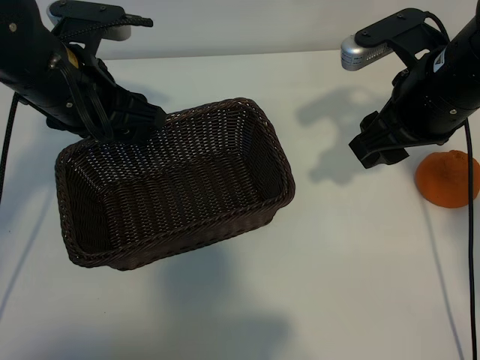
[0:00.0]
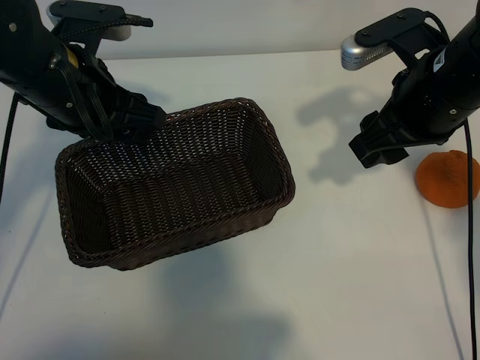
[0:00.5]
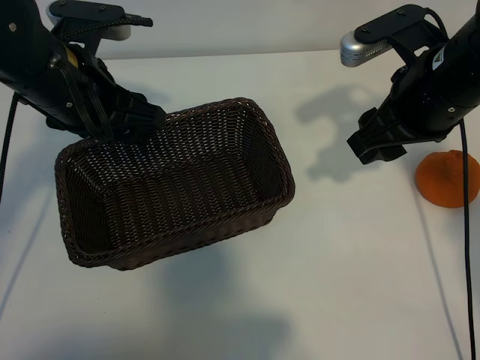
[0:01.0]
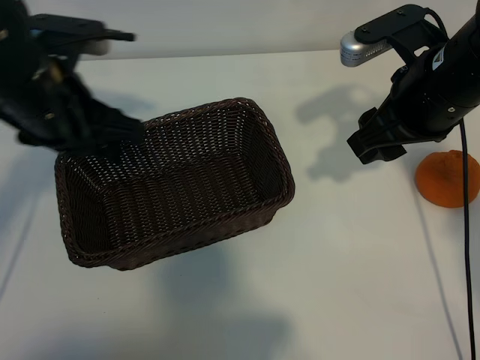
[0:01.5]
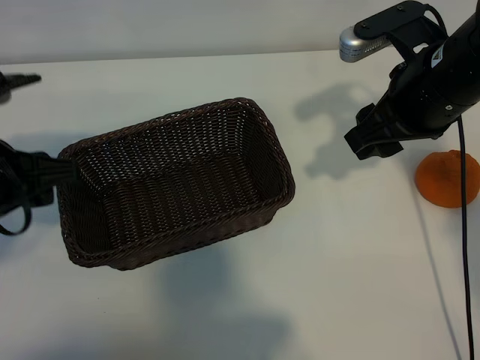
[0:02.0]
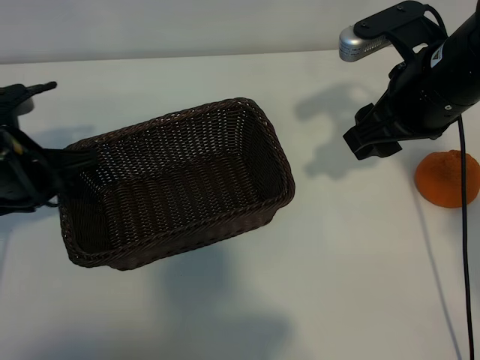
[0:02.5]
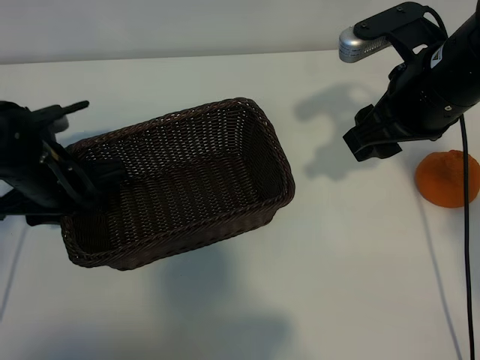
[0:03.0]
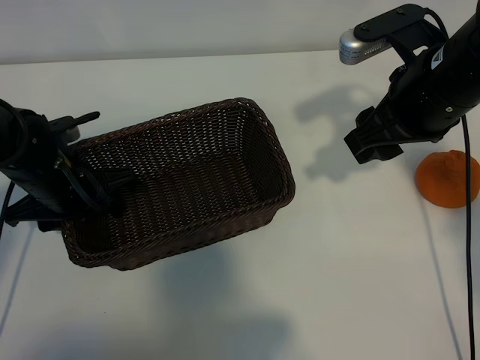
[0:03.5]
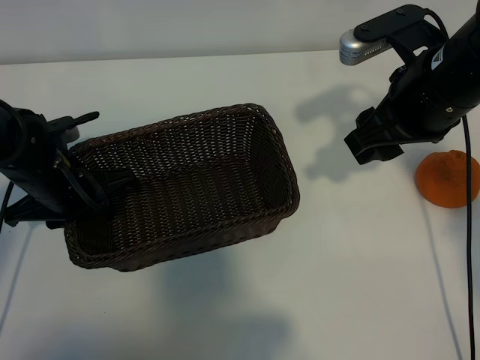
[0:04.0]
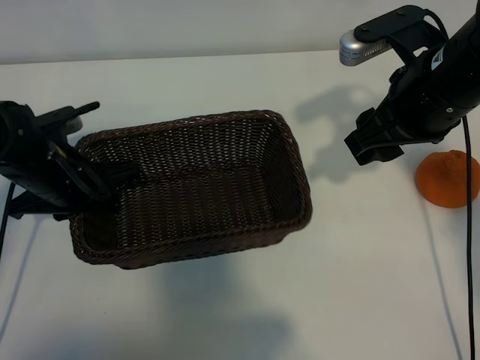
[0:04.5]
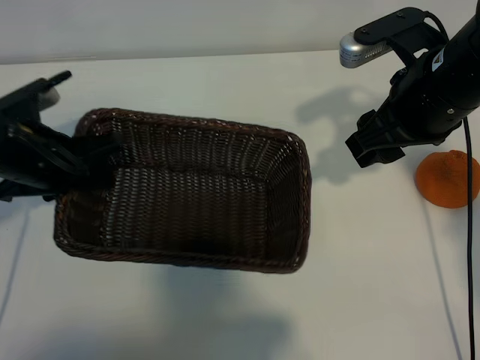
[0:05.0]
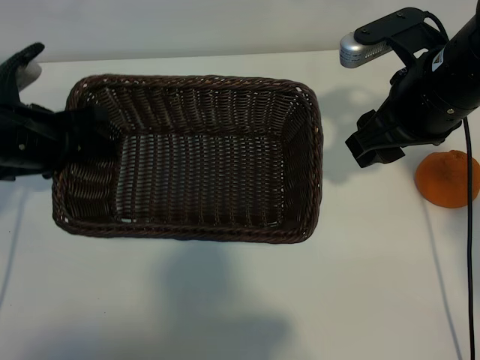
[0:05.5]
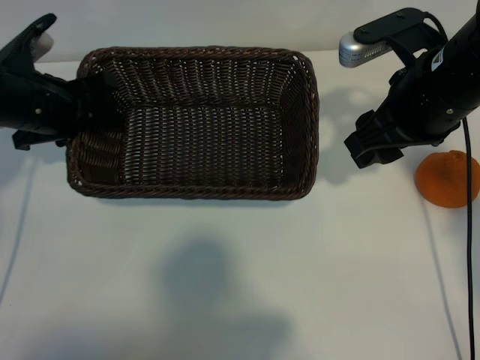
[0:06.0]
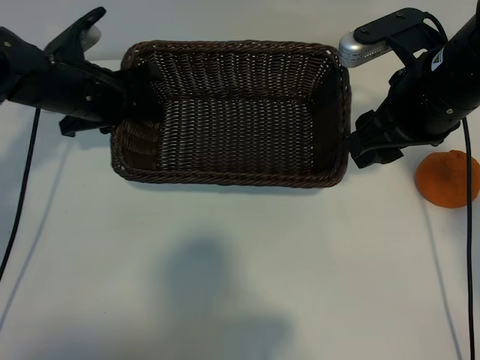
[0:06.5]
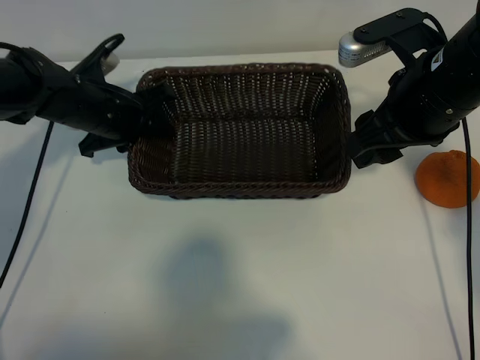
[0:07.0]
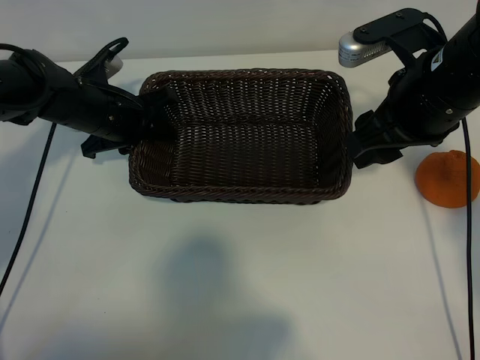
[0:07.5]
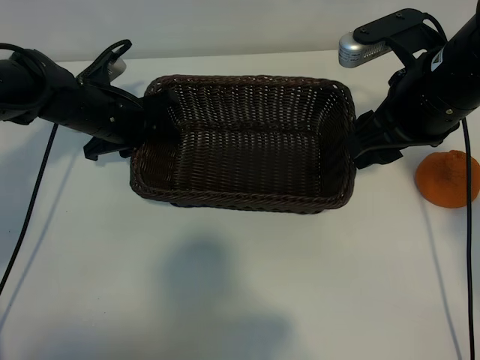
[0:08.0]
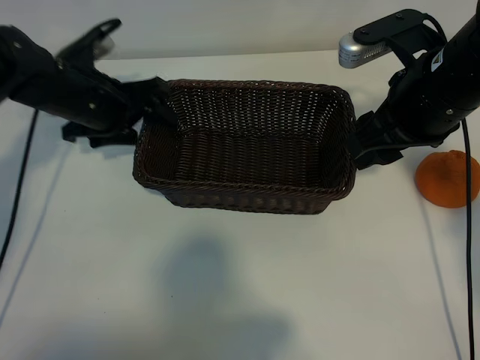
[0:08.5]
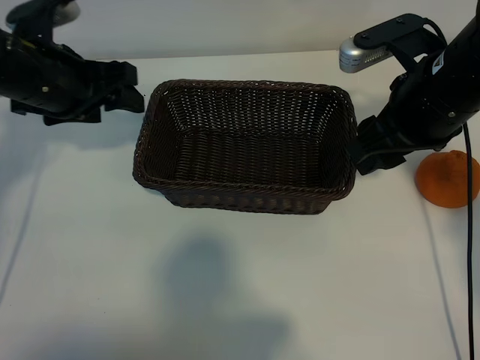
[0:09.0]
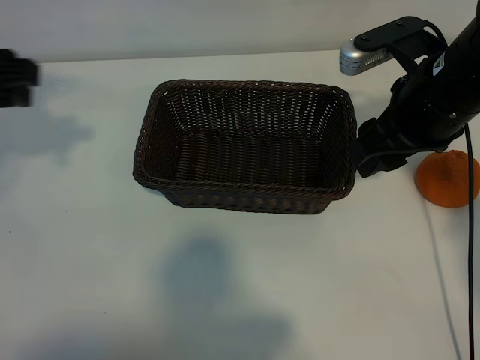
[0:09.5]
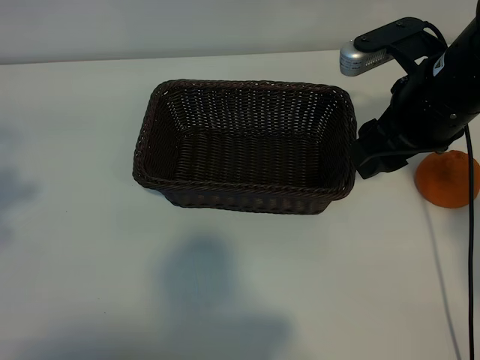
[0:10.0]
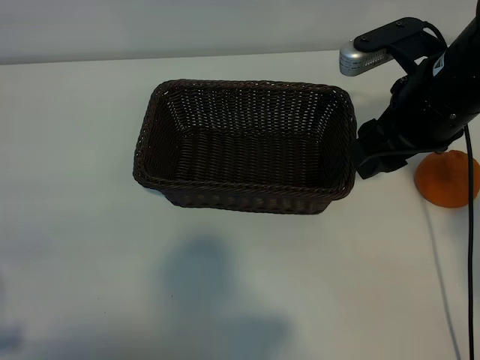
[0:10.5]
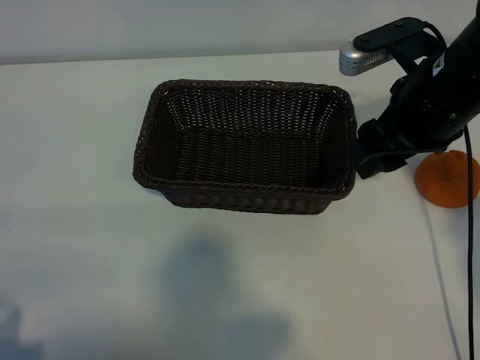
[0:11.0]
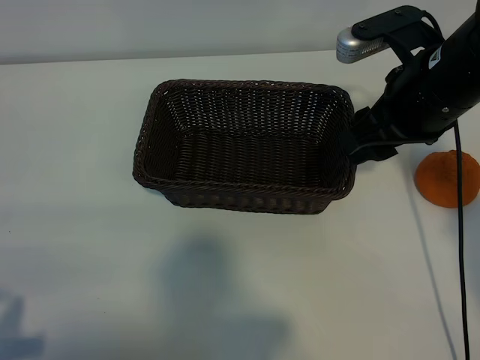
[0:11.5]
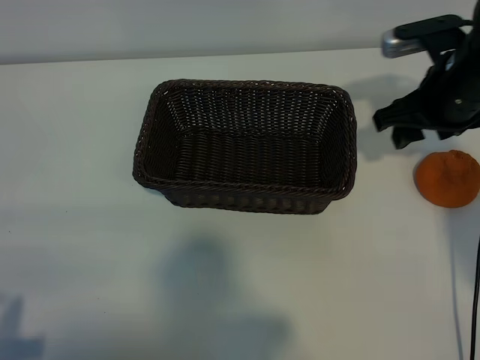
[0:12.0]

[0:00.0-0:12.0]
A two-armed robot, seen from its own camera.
Task of the whole recording: pick up the orange and put it into the basket.
Step, 0:01.0 to 0:03.5: Grasp the basket with left gripper.
Step, 0:04.0 to 0:08.0: Place the basket in the center of view with left gripper.

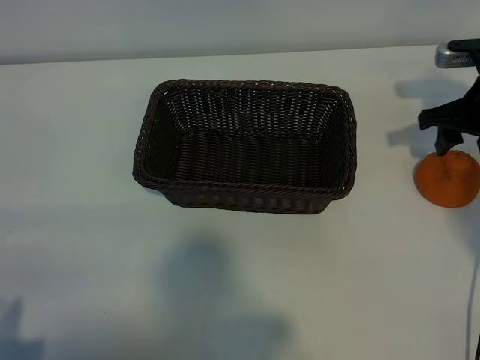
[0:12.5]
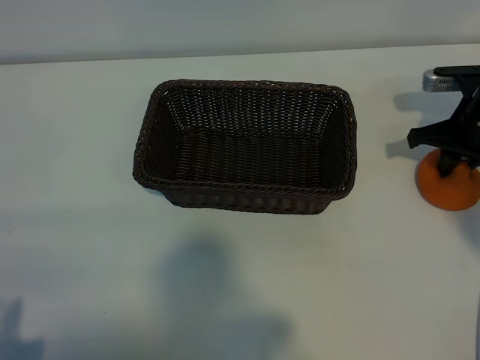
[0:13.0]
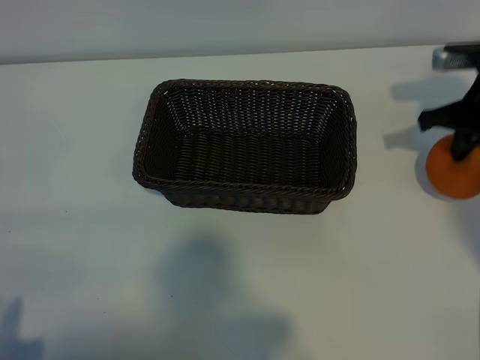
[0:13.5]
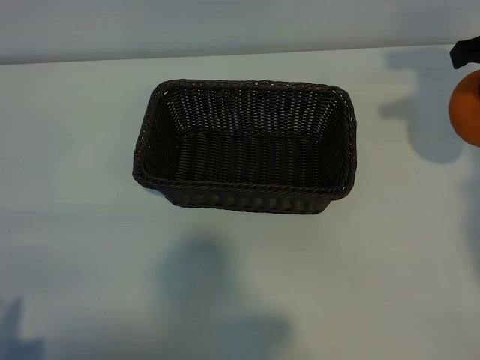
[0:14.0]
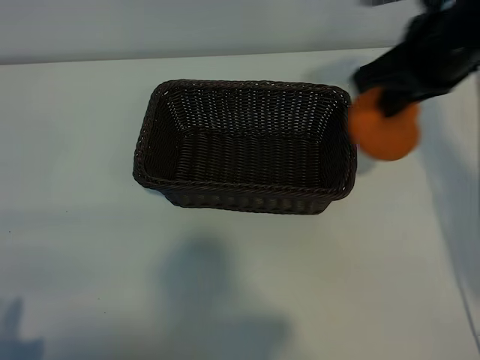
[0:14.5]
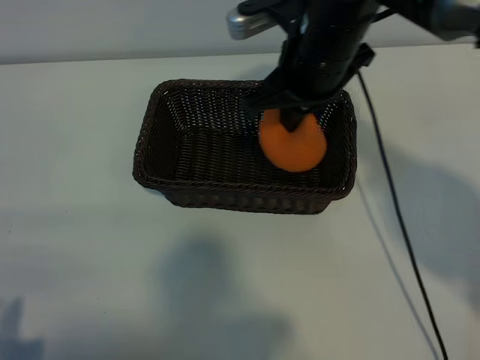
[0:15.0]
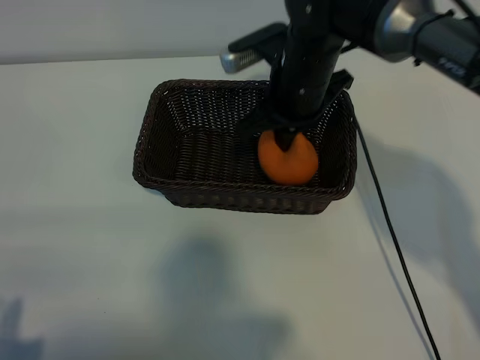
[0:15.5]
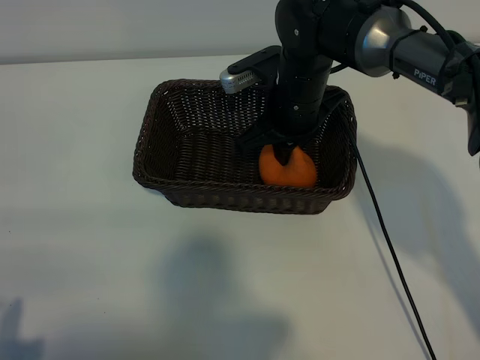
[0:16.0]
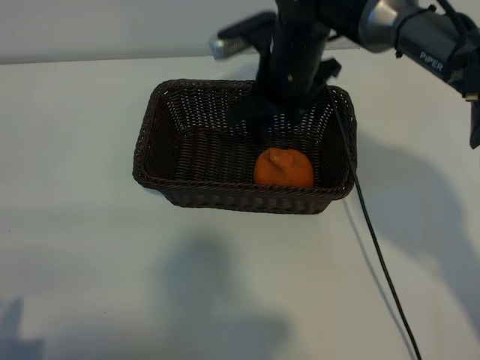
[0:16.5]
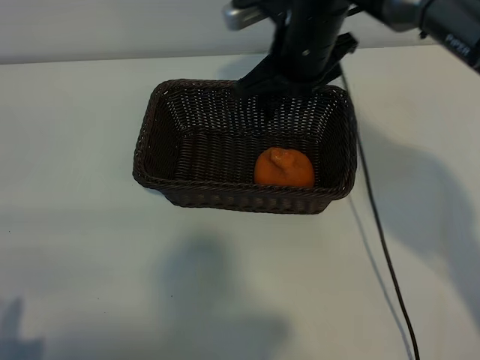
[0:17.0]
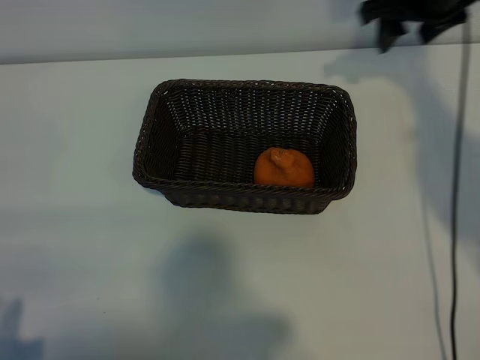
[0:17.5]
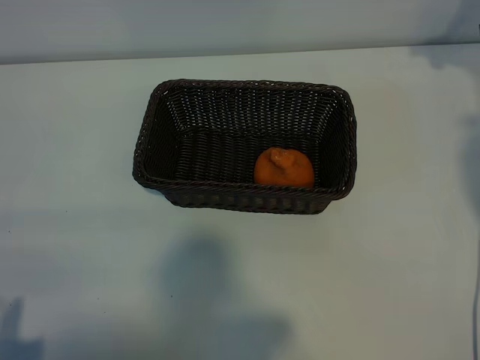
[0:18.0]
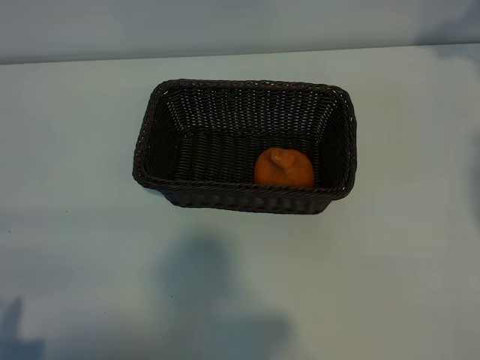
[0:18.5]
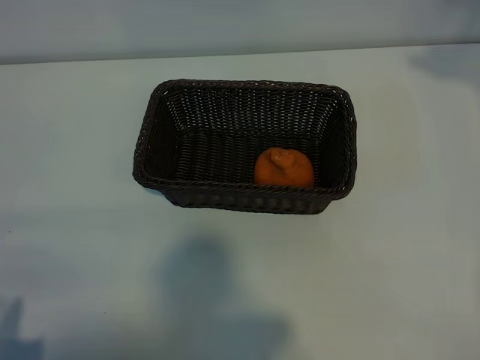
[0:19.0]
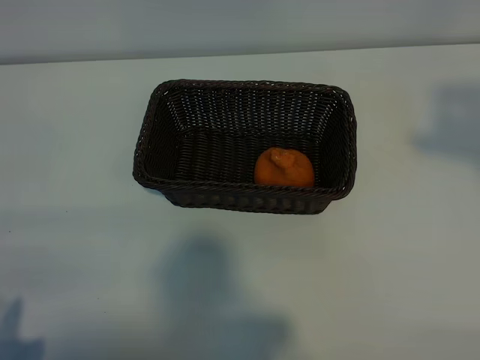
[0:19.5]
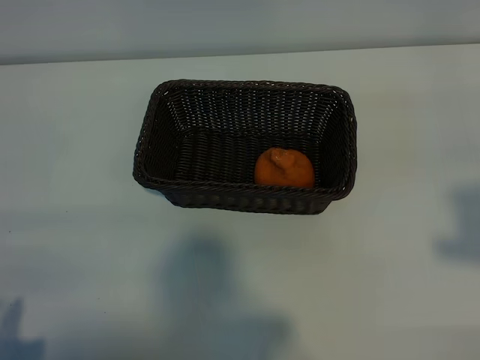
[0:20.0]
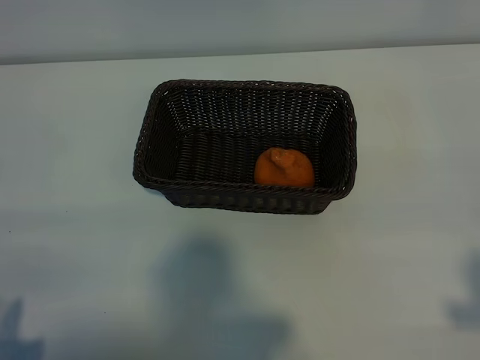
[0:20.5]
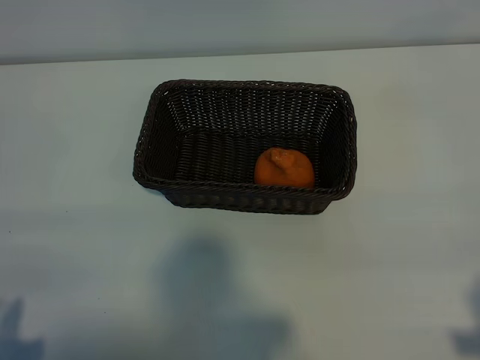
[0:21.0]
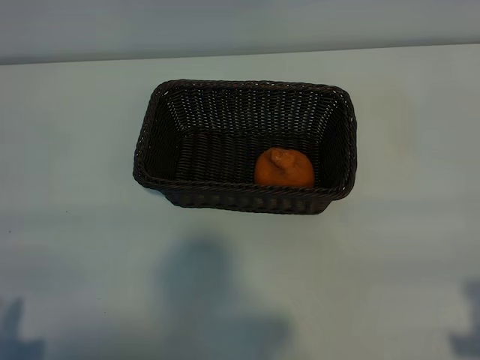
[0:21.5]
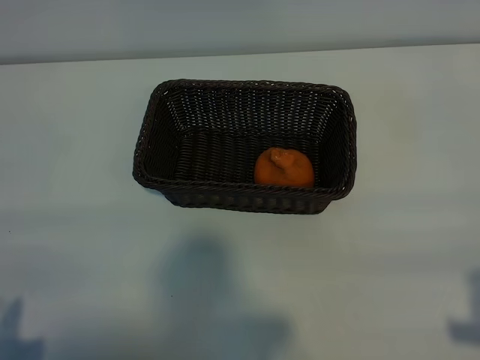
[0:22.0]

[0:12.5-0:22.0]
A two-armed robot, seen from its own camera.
Task of the whole recording: pick up the orange and put it into the basket.
Step, 0:13.5 to 0:16.0: Place the orange in the basket with right gripper.
